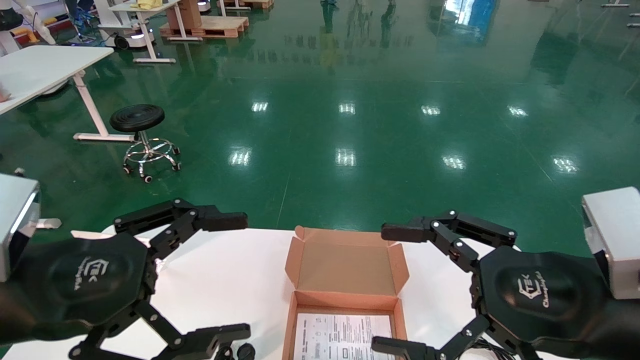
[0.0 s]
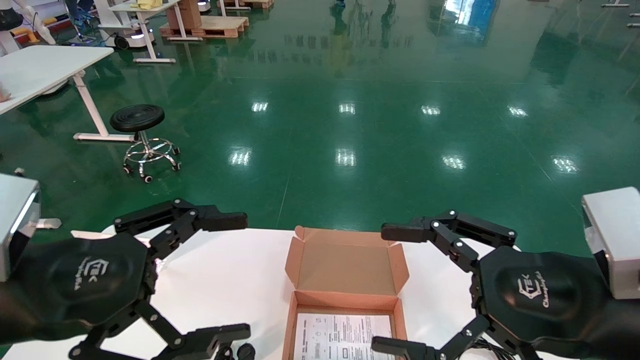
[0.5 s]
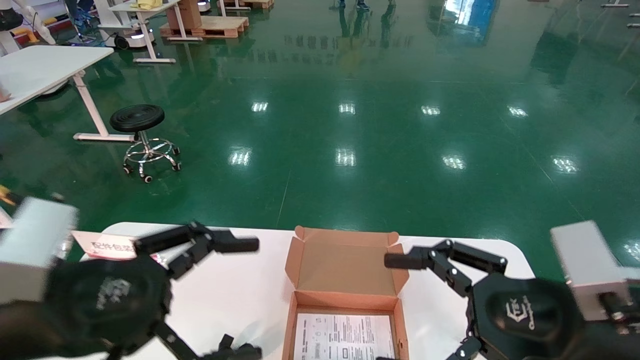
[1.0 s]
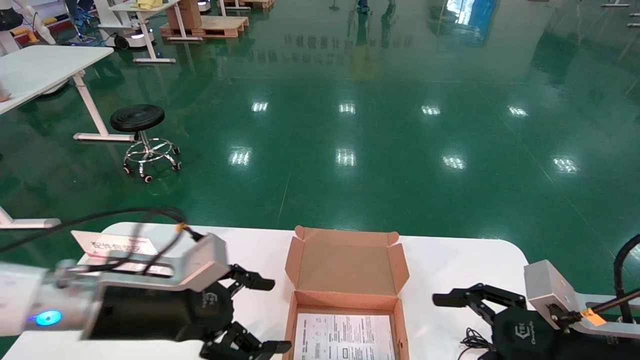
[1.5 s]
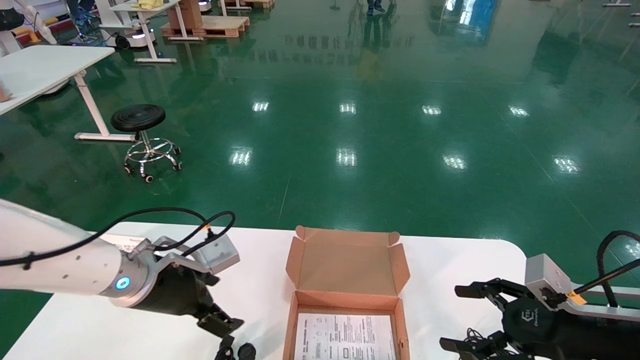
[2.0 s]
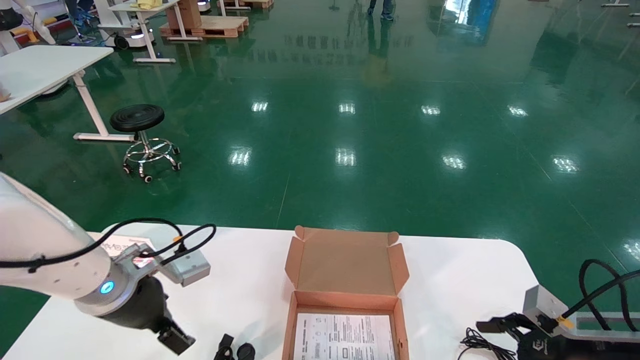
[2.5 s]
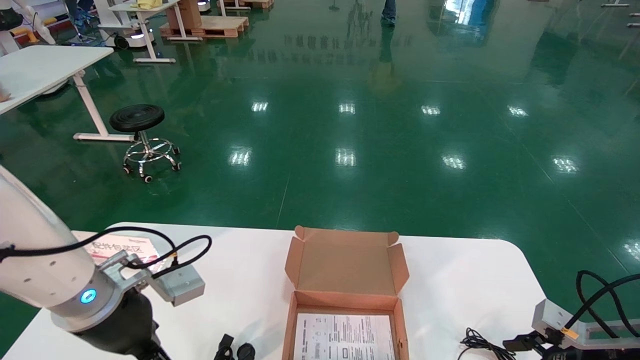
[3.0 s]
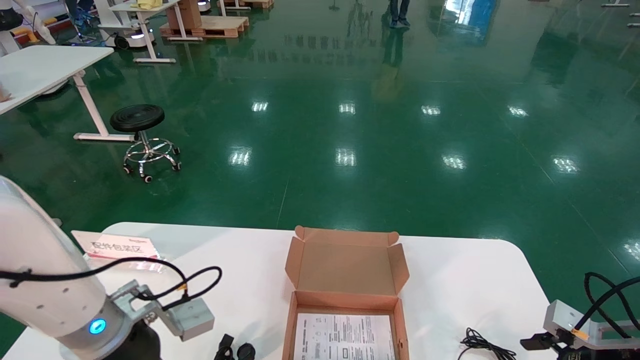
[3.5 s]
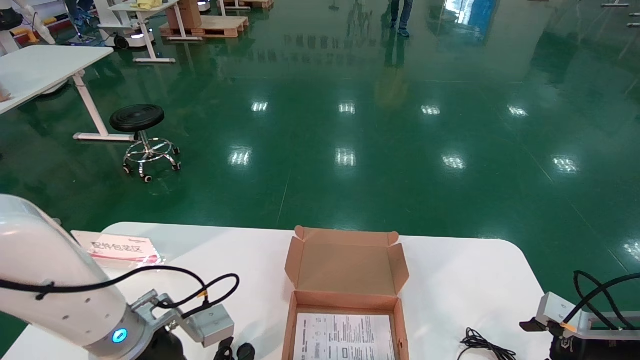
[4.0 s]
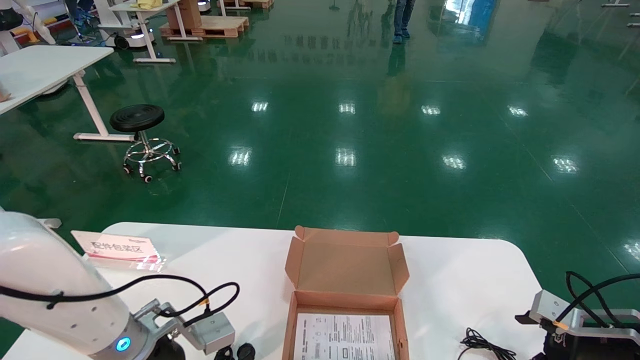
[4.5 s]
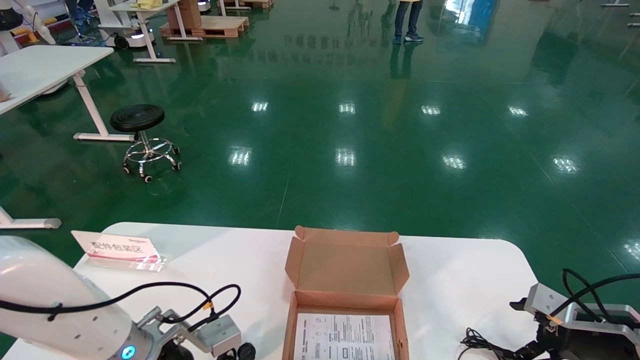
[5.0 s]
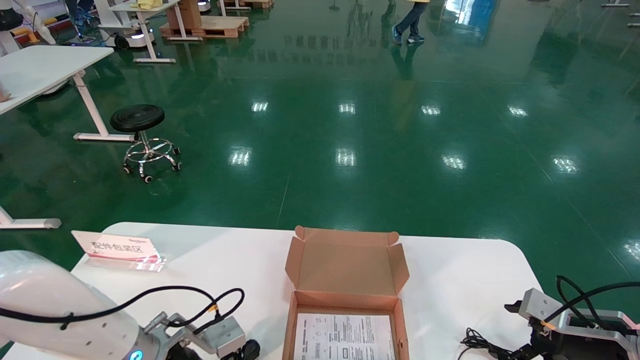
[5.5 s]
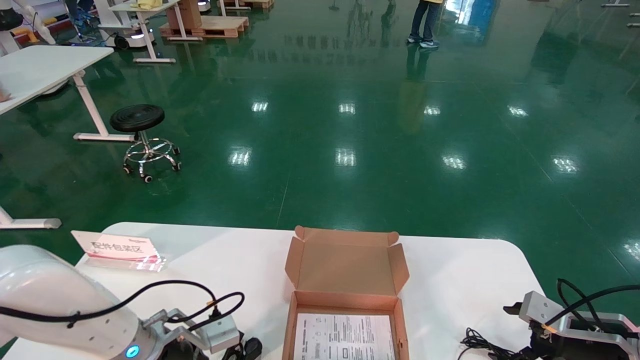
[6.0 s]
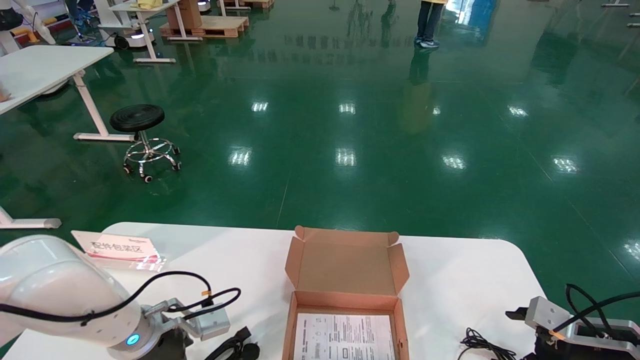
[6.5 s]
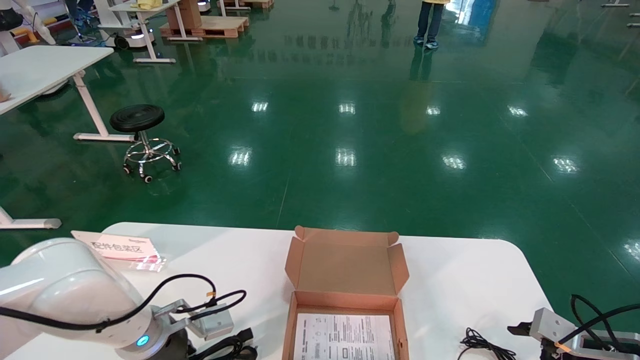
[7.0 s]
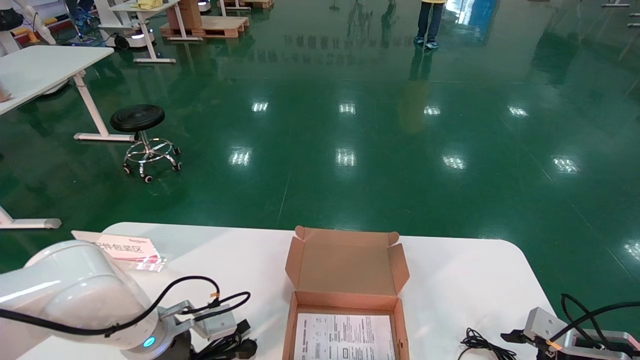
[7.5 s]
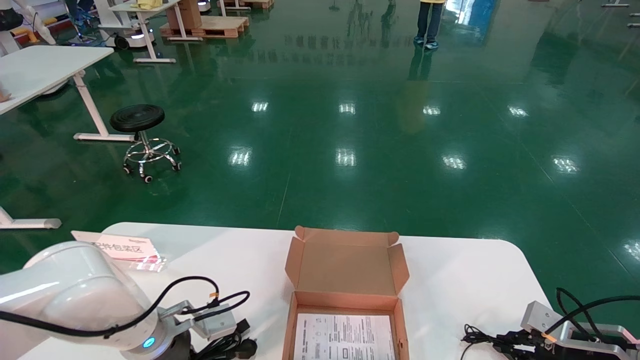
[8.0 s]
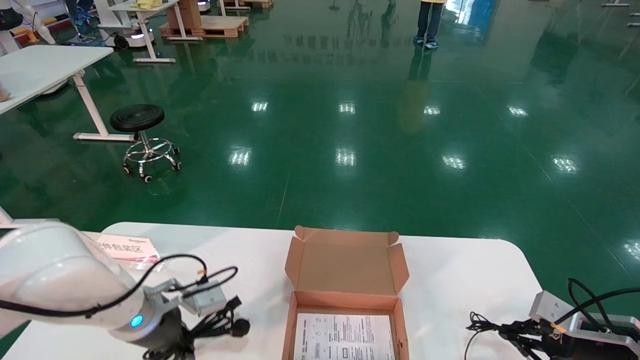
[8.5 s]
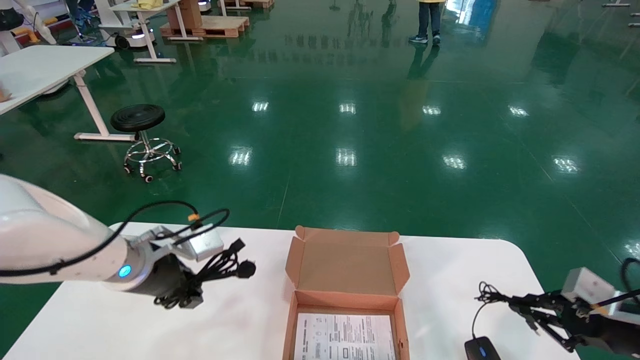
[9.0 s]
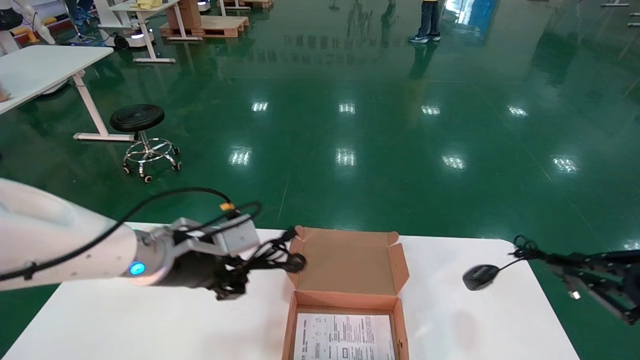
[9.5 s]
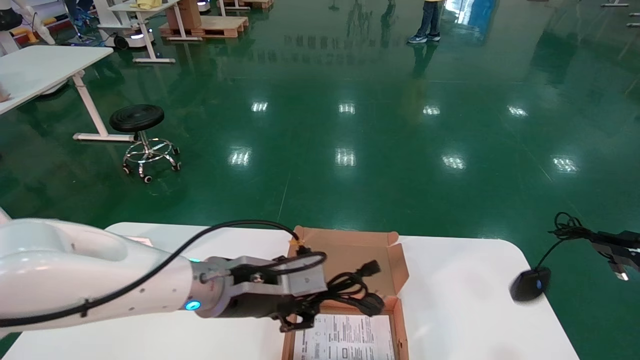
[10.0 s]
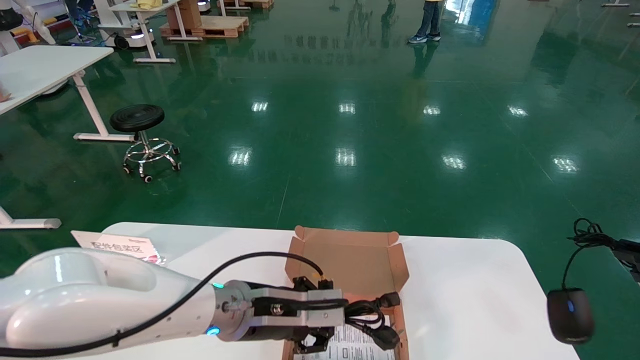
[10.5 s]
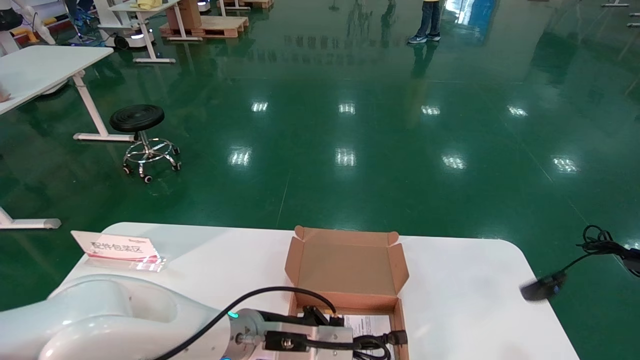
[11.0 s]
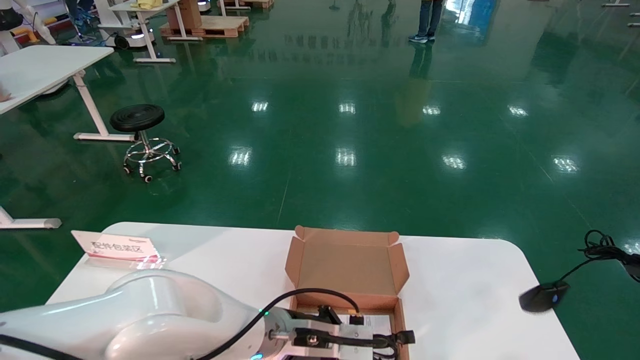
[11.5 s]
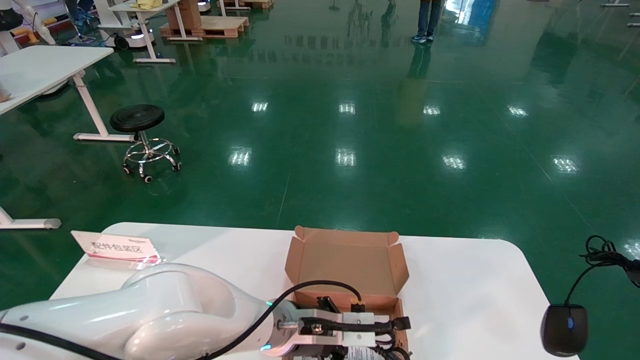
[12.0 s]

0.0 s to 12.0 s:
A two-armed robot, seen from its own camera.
Step, 0.0 to 7.5 s: Grasp the mouse and data cable.
0.0 to 2.0 s: The left gripper moves forward and downward, about 20 cm. Meanwhile the right gripper shifts roughly 20 cm downward, to the right and forward.
2.0 to 4.0 s: The left gripper changes place by about 5 cm. The right gripper goes about 10 cm to the right and downward.
4.0 to 6.0 s: The left gripper travels downward by about 5 cm.
6.0 to 8.0 s: The left gripper closes.
8.0 to 10.0 s: The left gripper travels to the right and upward by approximately 15 cm. Meanwhile the right gripper moves upward, backward and to the right, some 25 cm, and closes its fingers.
10.0 to 12.0 s: The left gripper is displaced downward and to the right by about 10 cm.

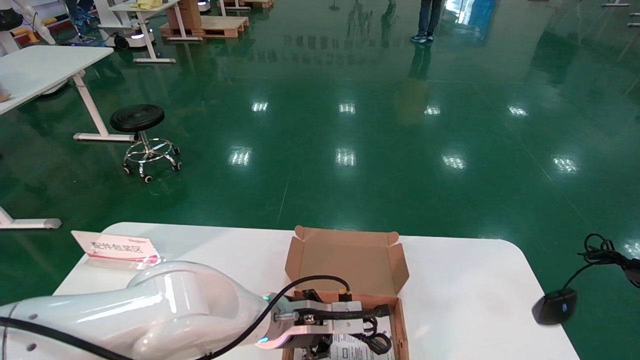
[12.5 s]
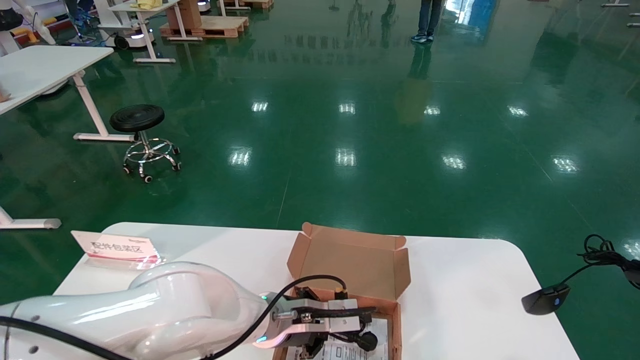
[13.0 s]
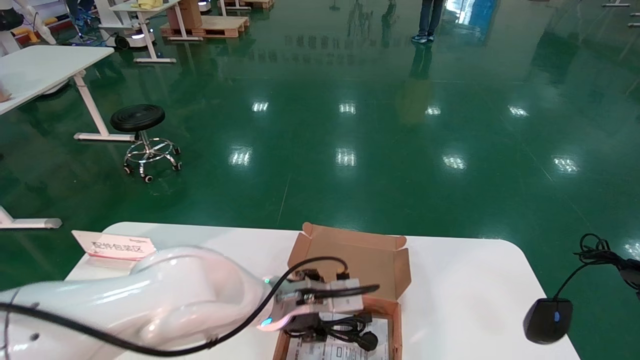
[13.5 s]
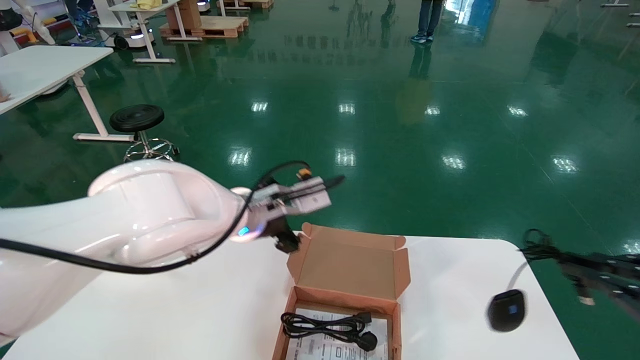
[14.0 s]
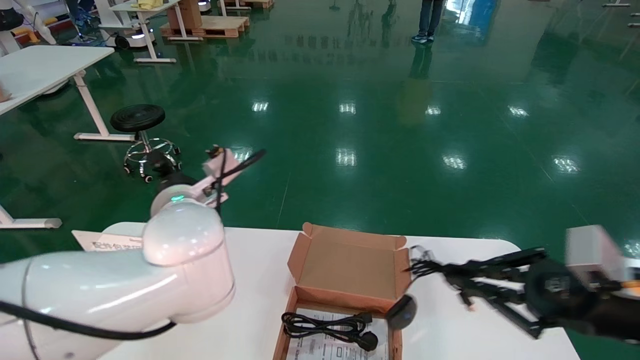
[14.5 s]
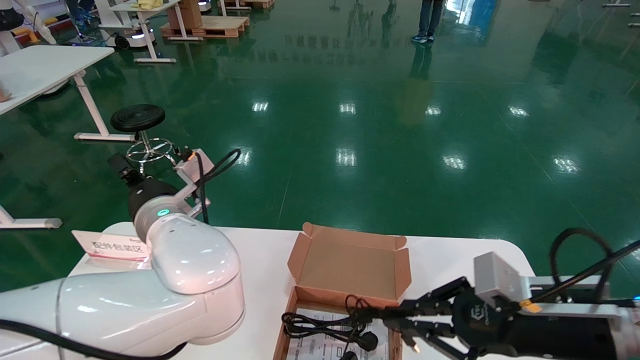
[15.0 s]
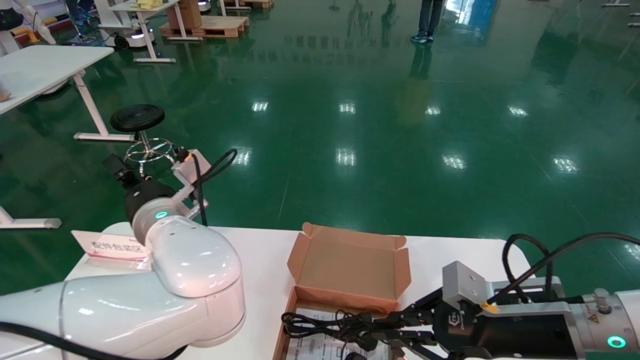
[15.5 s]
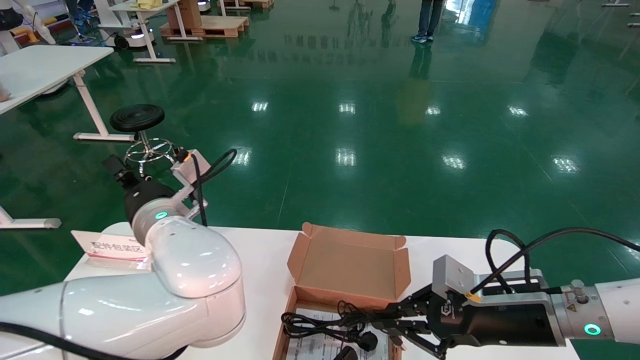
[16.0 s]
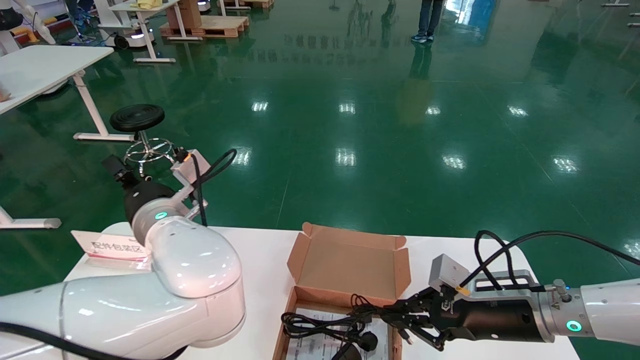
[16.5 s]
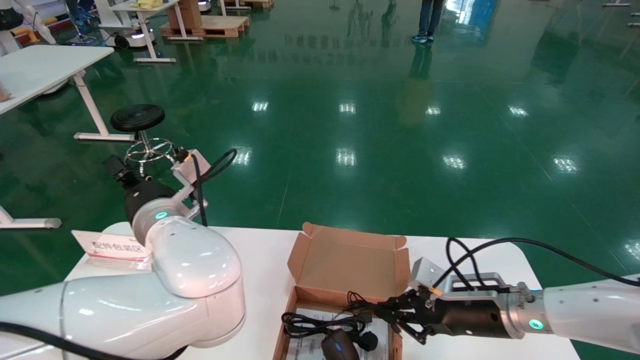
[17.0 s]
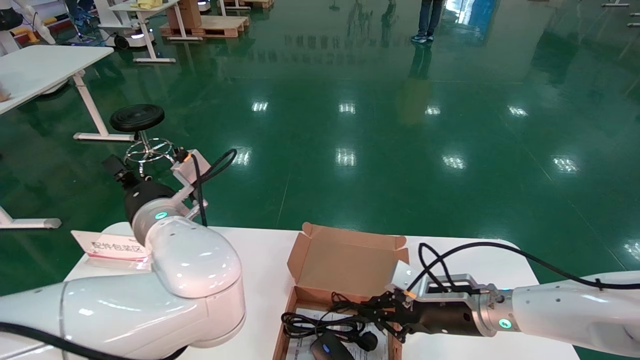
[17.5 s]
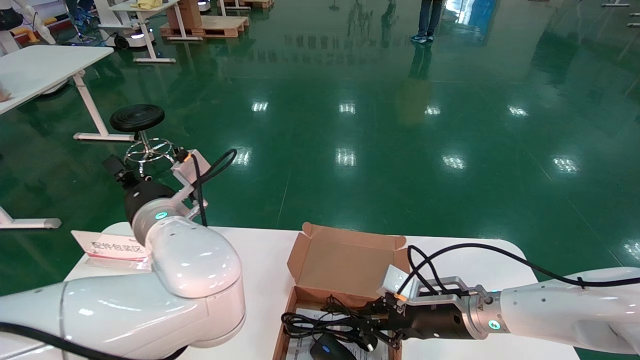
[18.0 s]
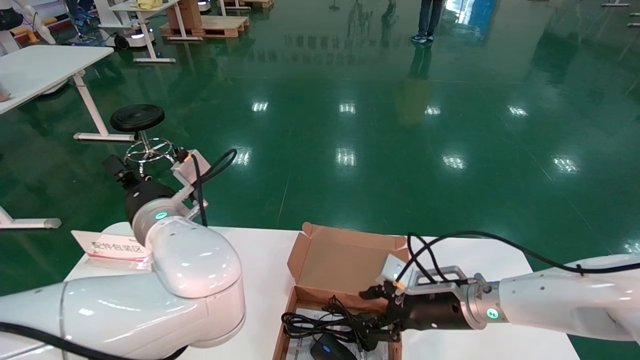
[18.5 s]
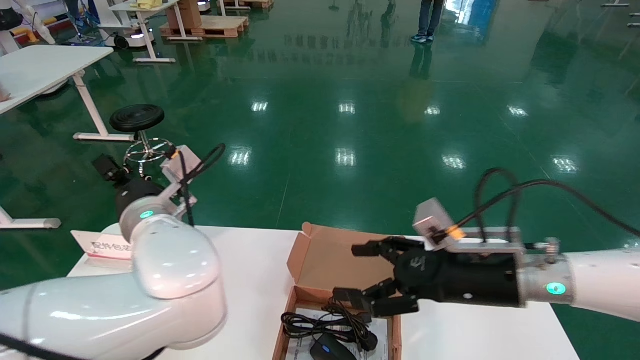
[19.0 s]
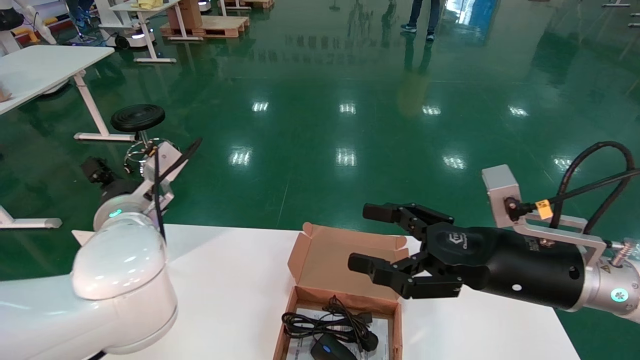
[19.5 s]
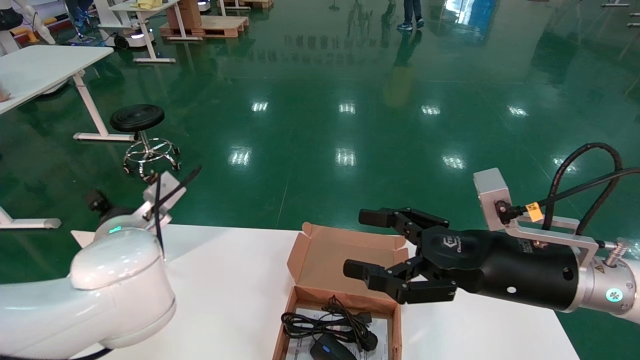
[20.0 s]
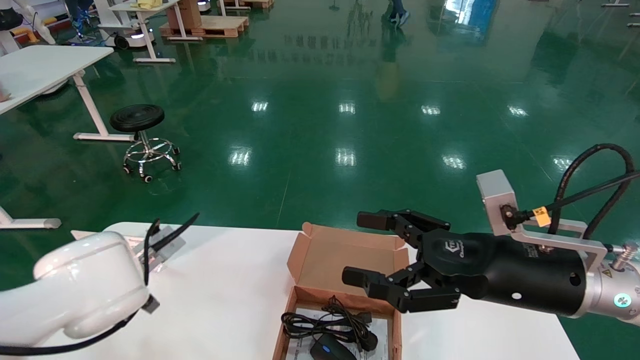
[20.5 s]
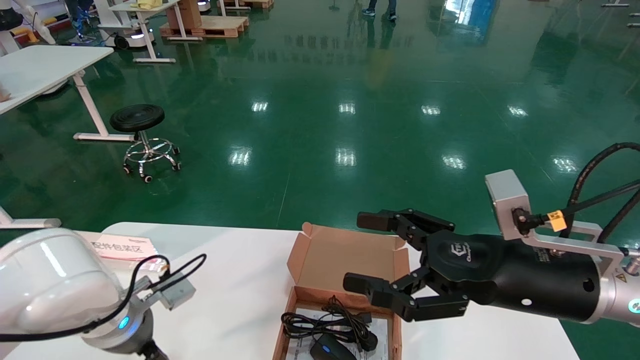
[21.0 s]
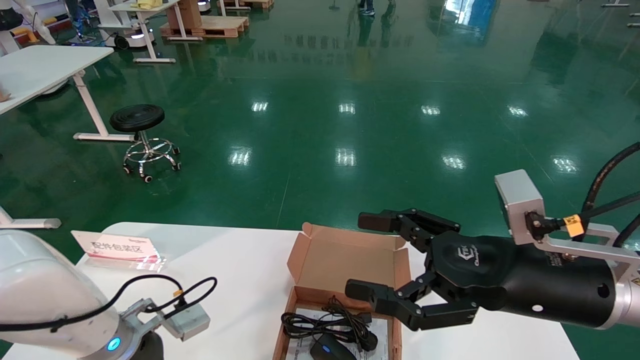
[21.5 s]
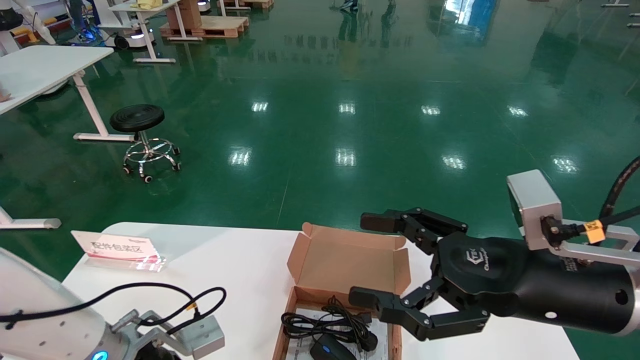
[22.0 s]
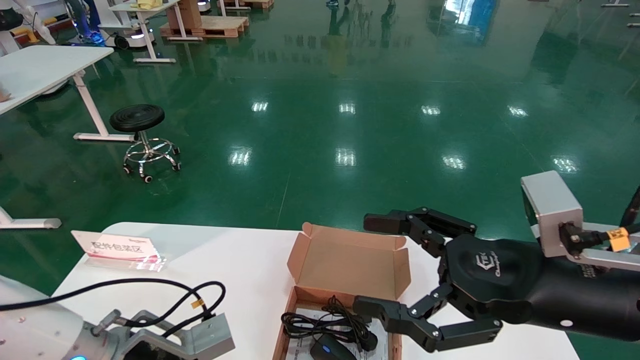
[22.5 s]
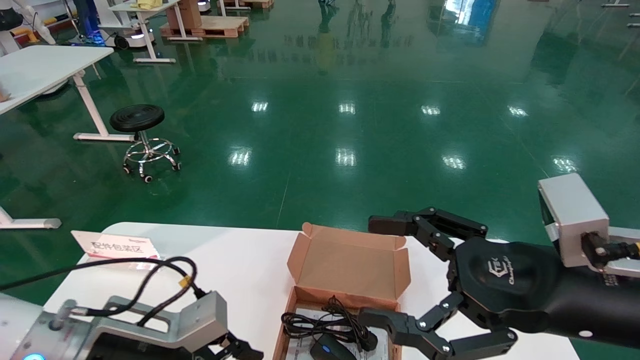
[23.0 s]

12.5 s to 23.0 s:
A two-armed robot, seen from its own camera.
Step, 12.5 to 18.0 s: Place the mouse and data cable in the paper box.
12.5 to 14.5 s: The left gripper moves upward and to the left, roughly 20 cm, and opens up, while the right gripper shifts about 20 cm to the left.
14.5 to 16.5 s: The right gripper is displaced forward, to the left and downward by roughly 15 cm.
16.5 to 19.0 s: The right gripper moves upward, about 5 cm.
19.0 to 21.0 s: The right gripper is displaced backward by about 5 cm, and opens its fingers; the left gripper goes some 15 cm downward and to the left.
21.0 to 23.0 s: The right gripper is displaced backward by some 5 cm. Meanwhile the left gripper moves backward, about 10 cm.
